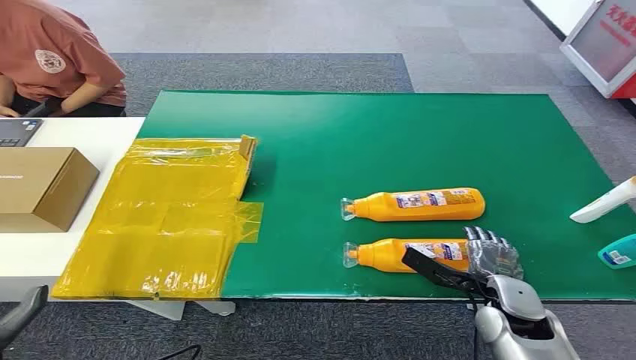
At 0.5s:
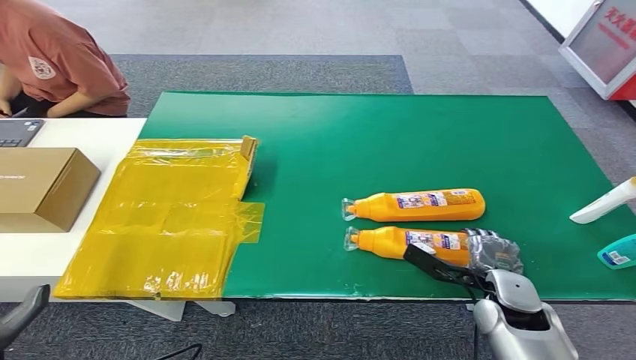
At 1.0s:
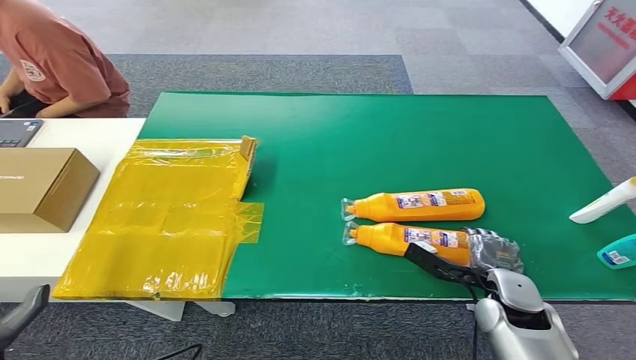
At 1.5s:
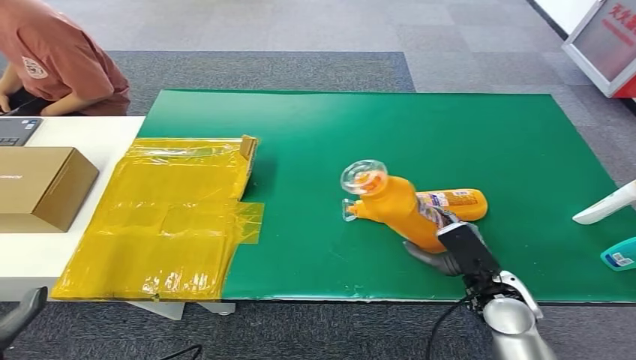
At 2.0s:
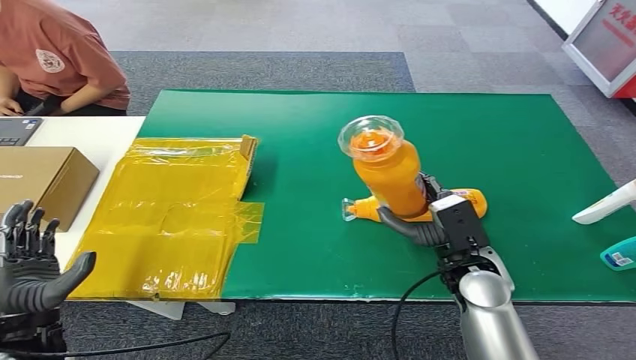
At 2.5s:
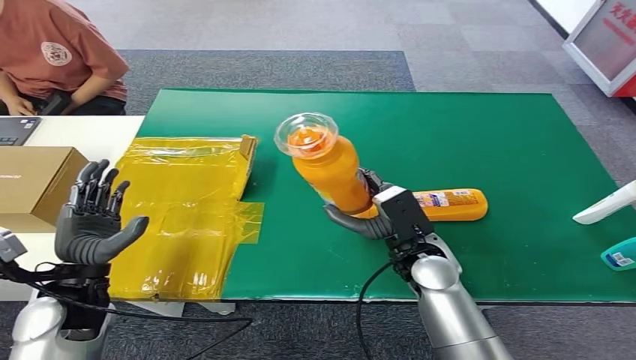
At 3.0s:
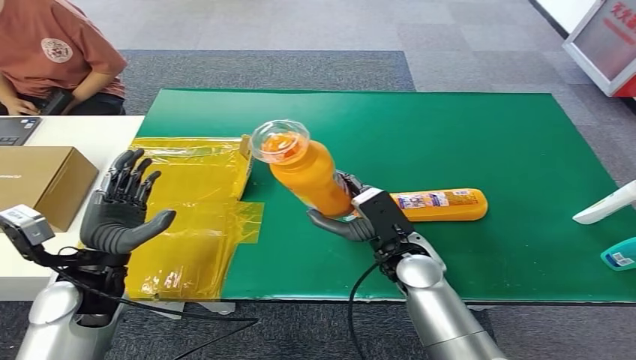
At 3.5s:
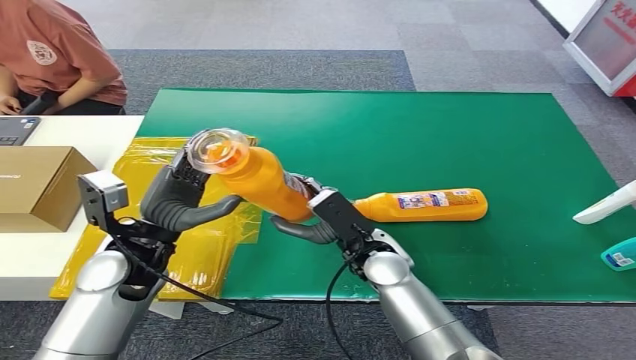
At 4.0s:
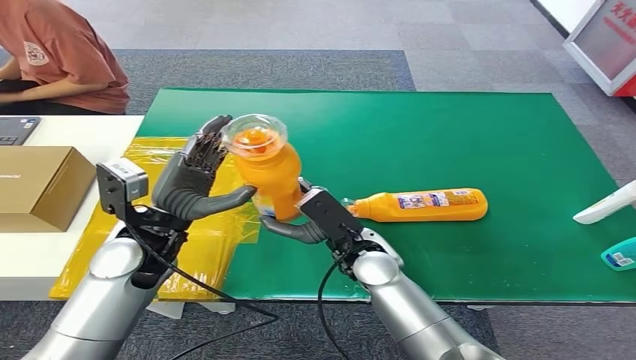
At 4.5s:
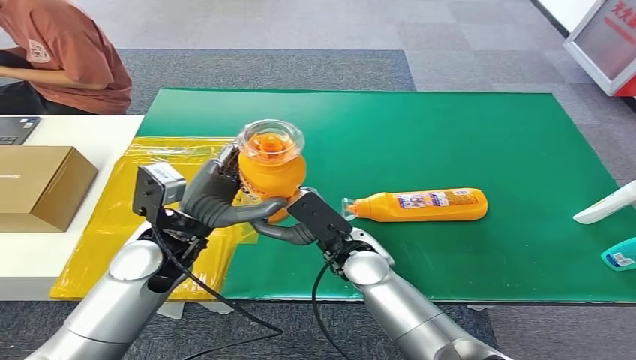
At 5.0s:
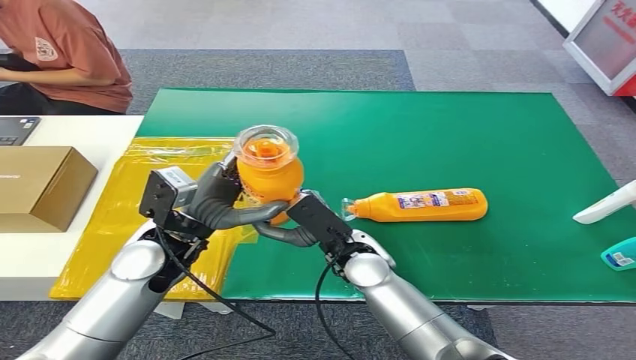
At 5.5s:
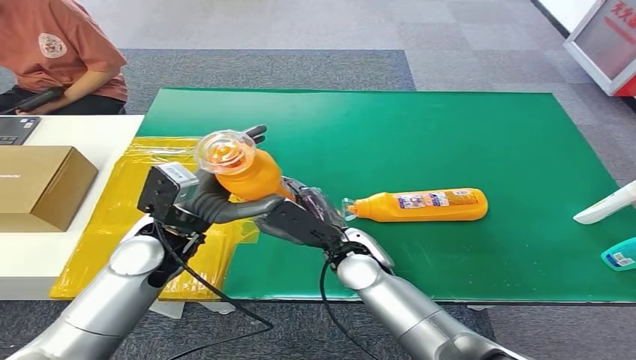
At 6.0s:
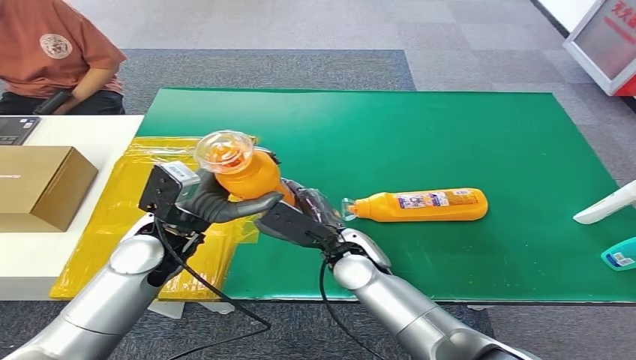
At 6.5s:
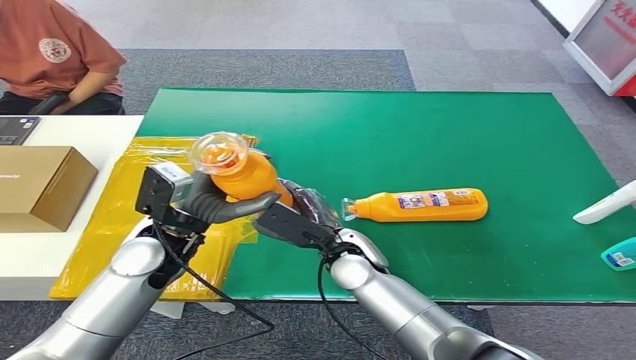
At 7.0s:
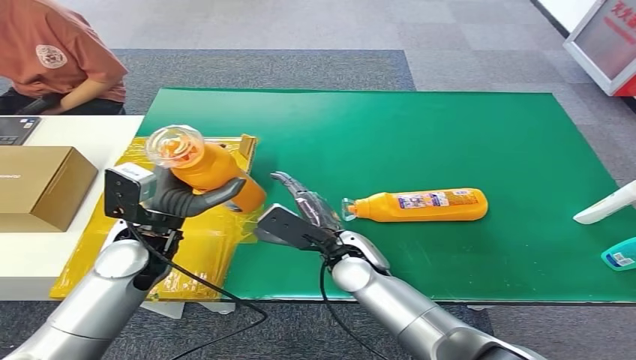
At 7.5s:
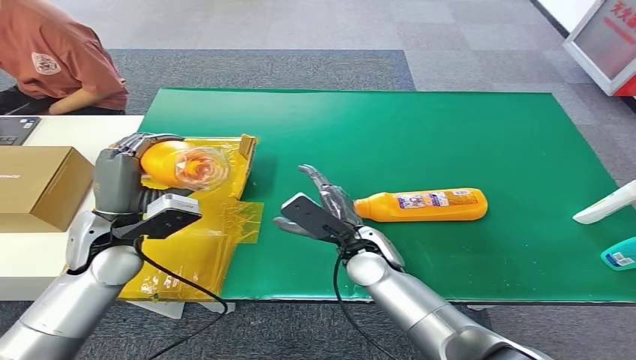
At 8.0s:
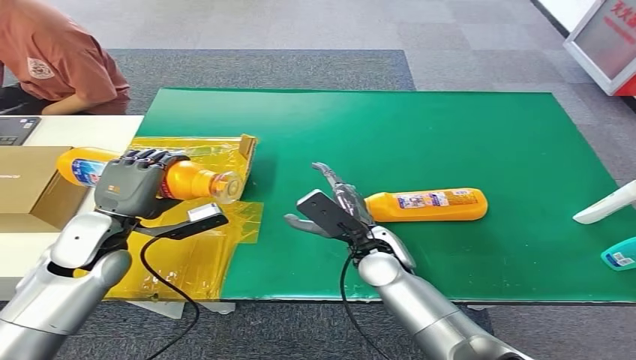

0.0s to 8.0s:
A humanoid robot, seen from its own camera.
Step, 0.0s to 1.5s: Pick up the bottle from the table.
Step, 2.0s to 8.0s: Turn the bottle to the front side.
4.0s to 6.0s: The hands make only small movements.
